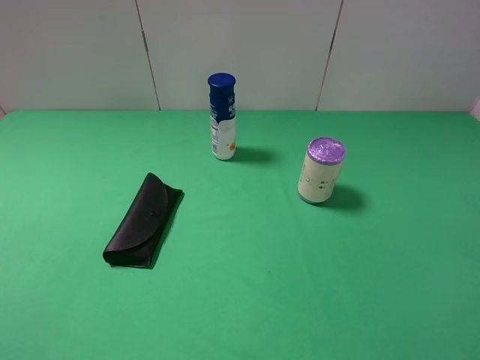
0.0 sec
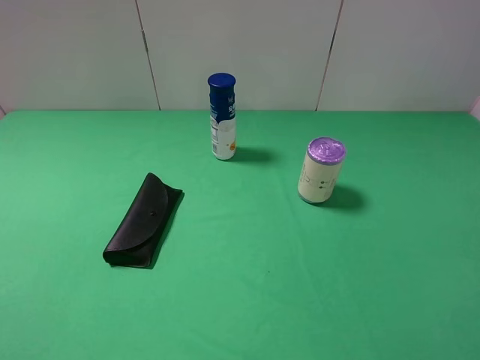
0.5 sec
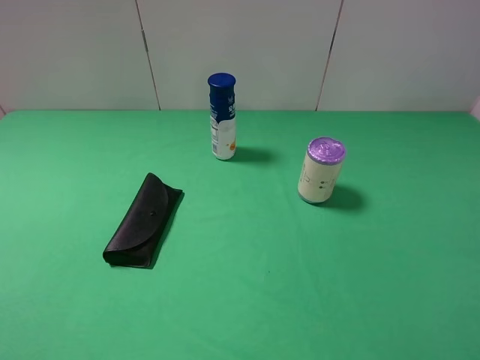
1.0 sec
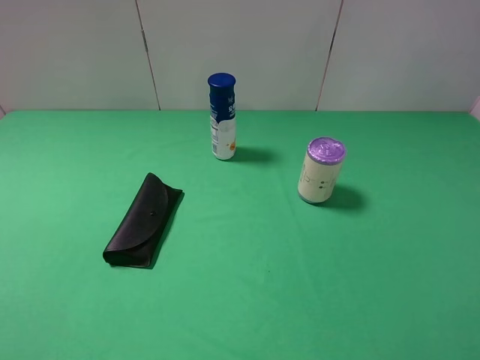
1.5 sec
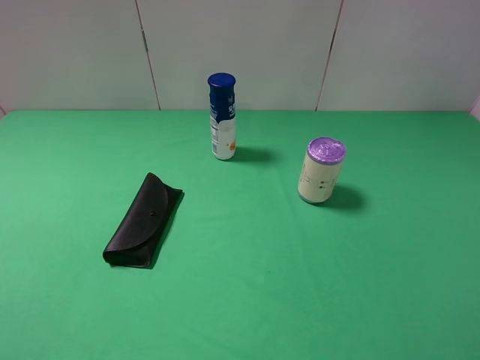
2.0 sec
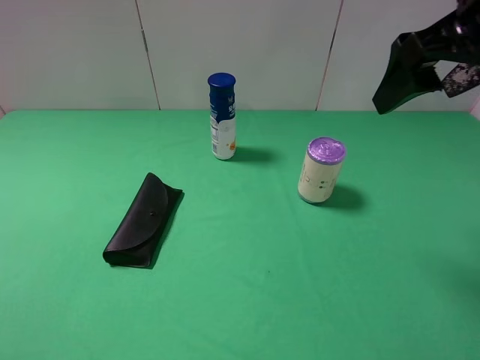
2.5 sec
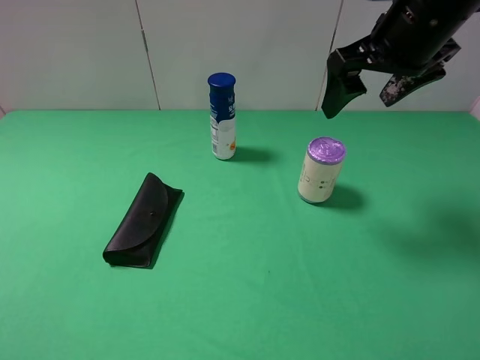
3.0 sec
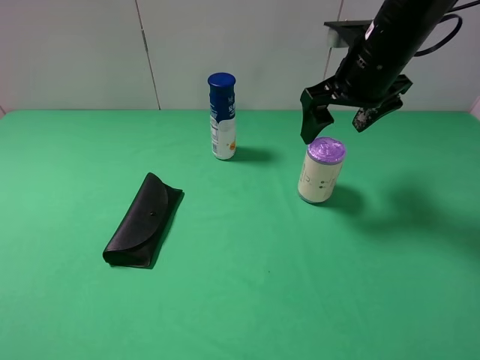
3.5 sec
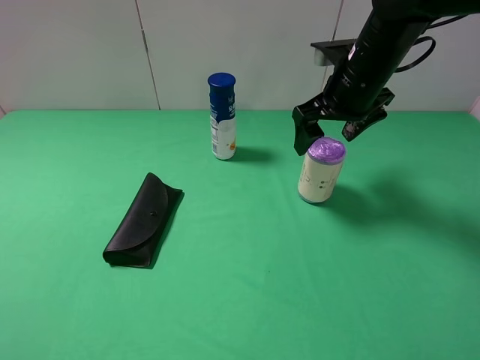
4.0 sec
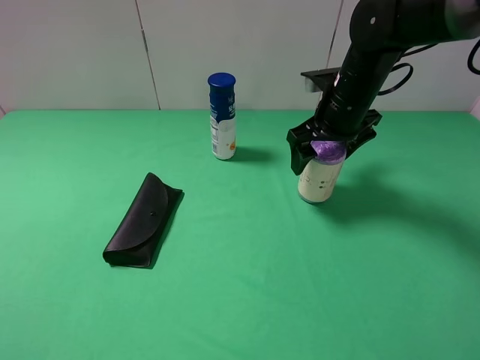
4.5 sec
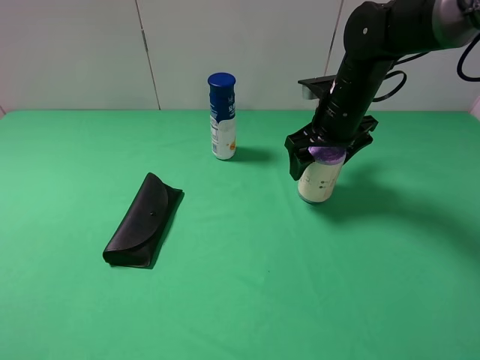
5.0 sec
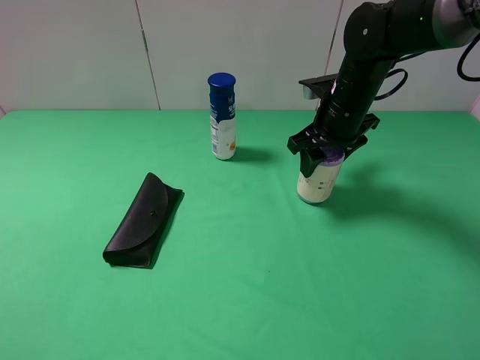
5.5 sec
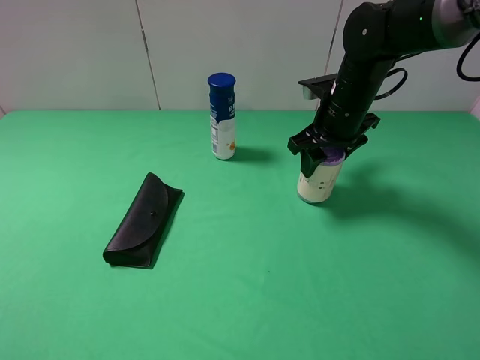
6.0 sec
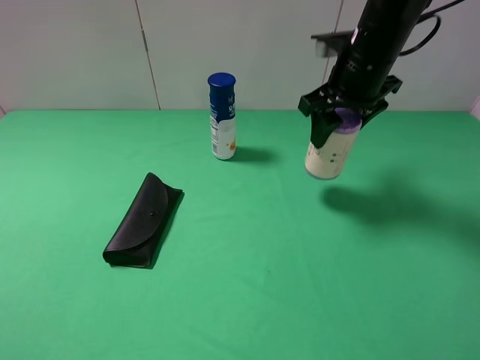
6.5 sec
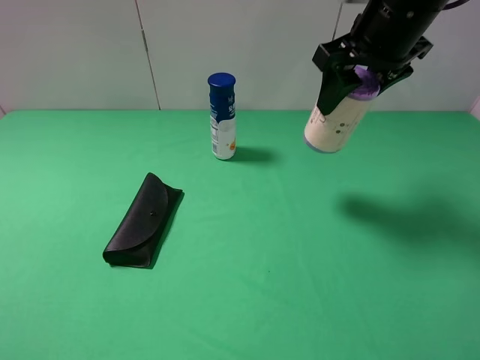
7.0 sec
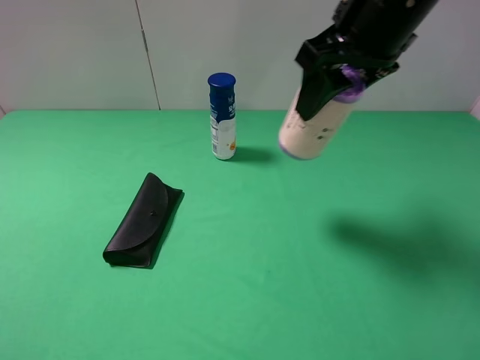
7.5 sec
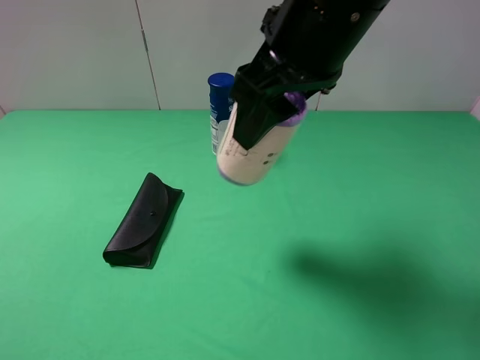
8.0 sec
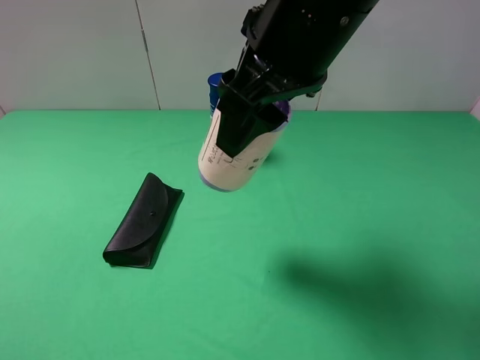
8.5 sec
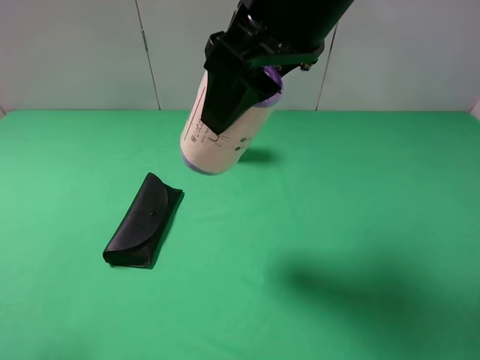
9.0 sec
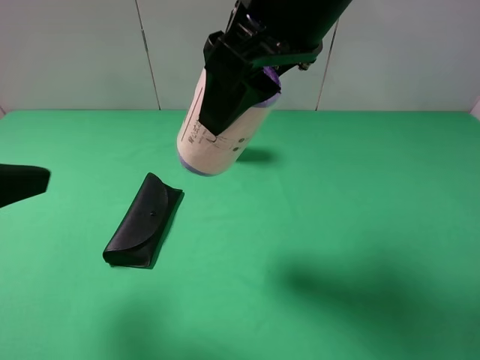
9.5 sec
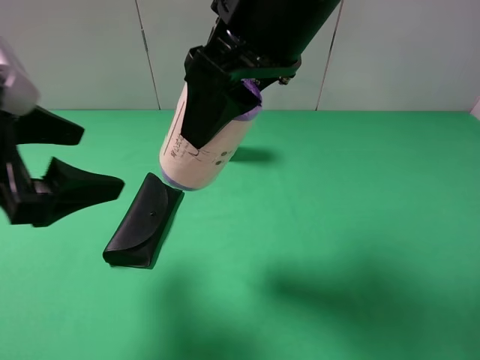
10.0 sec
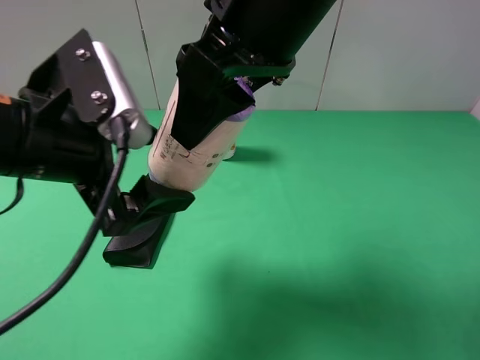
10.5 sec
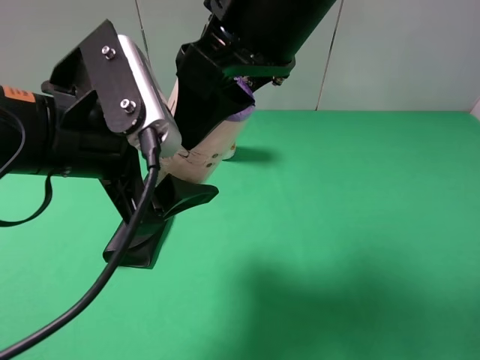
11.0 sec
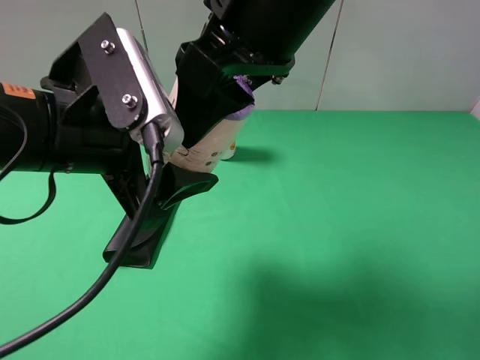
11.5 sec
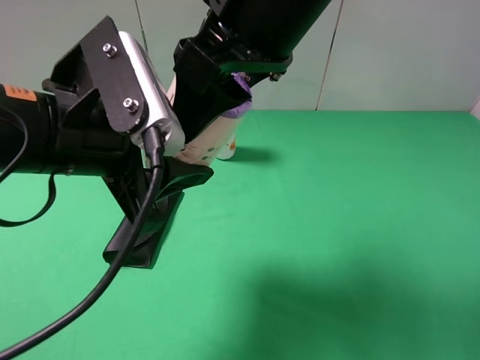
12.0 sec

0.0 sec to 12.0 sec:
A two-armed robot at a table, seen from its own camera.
Task of the whole recording: use the right gripper to pick up the item and transfer it from the right gripper to the left gripper.
Step, 0.0 sec to 5.5 sec: Use the right gripper to grab the purple garbage bag on the right side of the table.
2.0 sec to 4.0 sec: The right gripper travels forward, downward and to the left by roughly 30 cm.
4.0 sec to 6.0 sec: The right gripper changes place by roughly 5 cm, and closes its fingers.
6.0 sec to 8.0 sec: The right gripper shifts approximately 25 cm upward, backward and to the left.
8.0 sec to 10.0 sec: The left gripper heads forward and to the right, covering approximately 20 cm.
10.0 sec to 12.0 sec: The left gripper goes some 10 cm to the right, and closes its fingers.

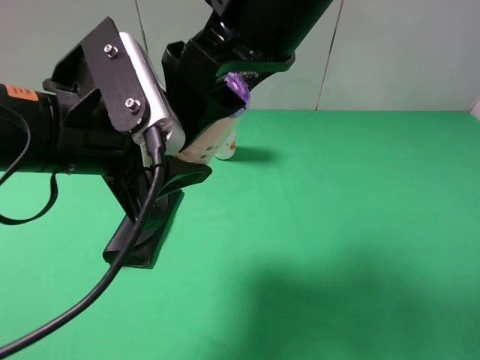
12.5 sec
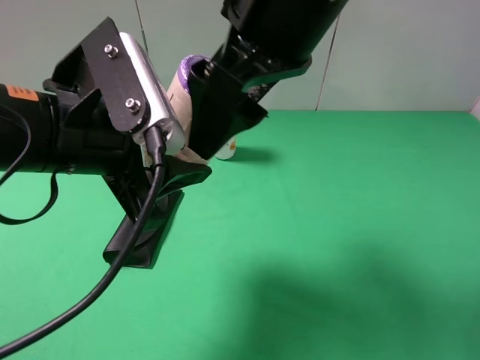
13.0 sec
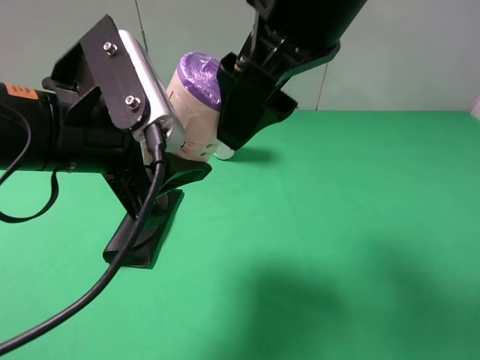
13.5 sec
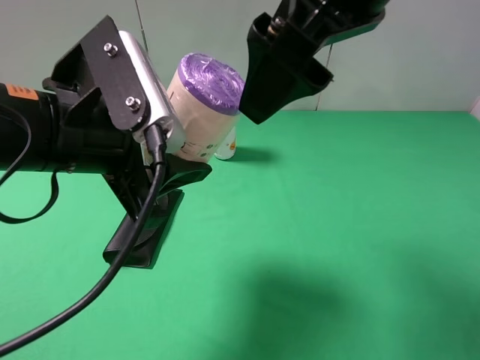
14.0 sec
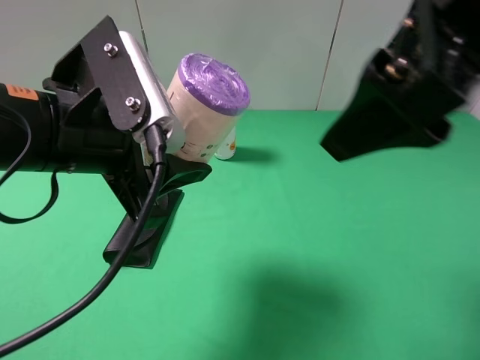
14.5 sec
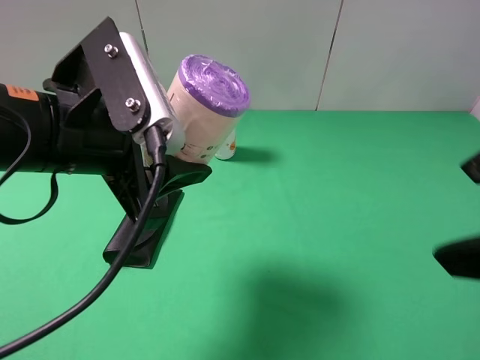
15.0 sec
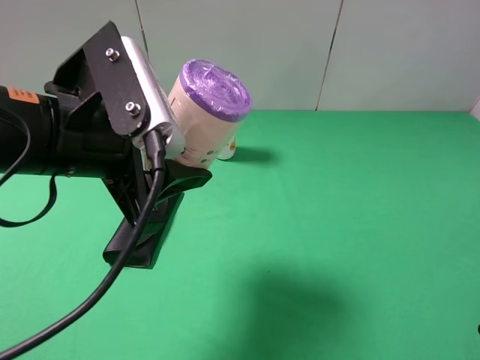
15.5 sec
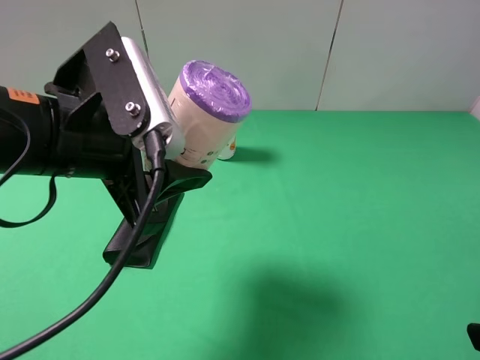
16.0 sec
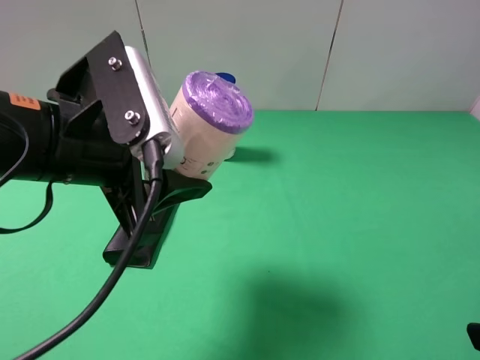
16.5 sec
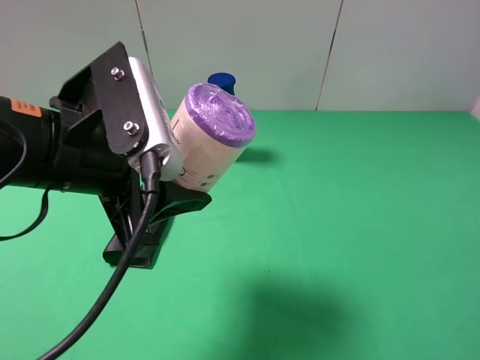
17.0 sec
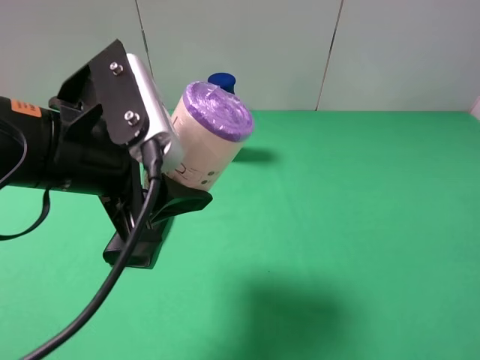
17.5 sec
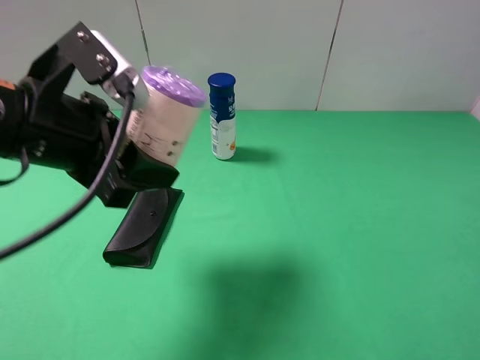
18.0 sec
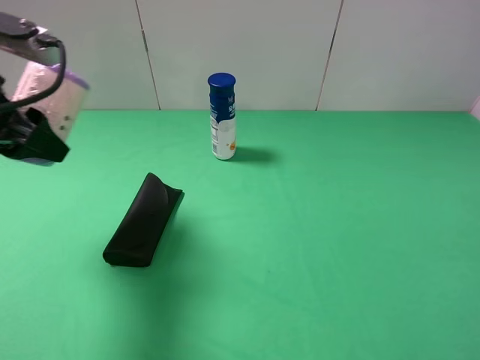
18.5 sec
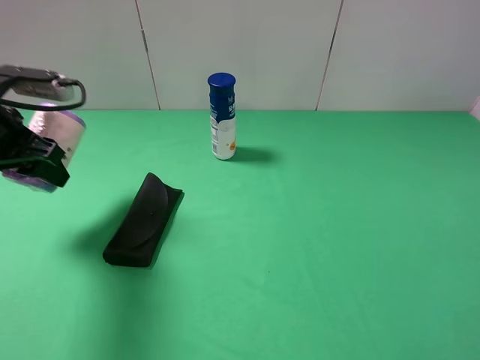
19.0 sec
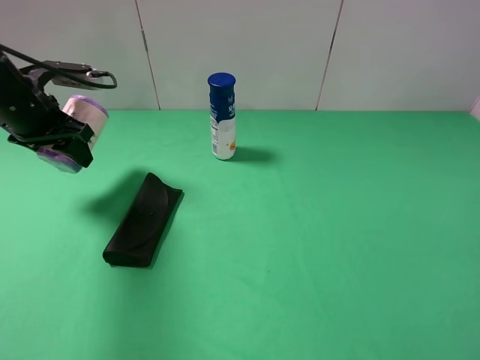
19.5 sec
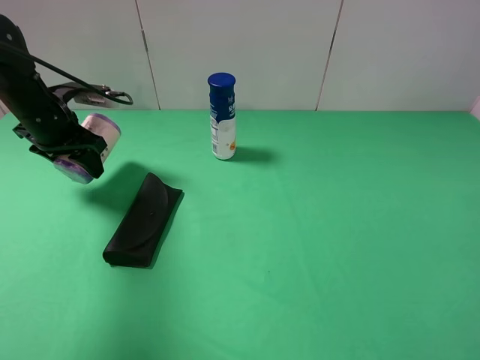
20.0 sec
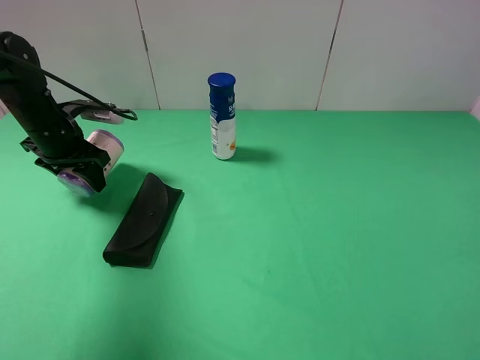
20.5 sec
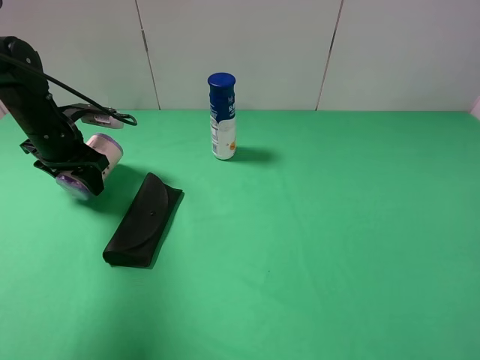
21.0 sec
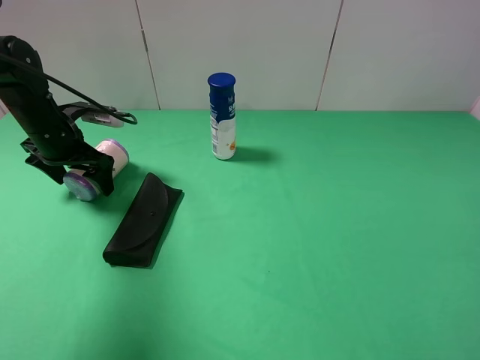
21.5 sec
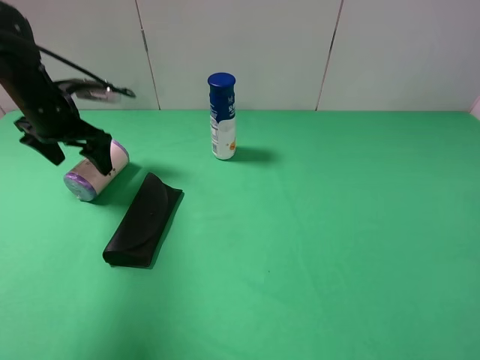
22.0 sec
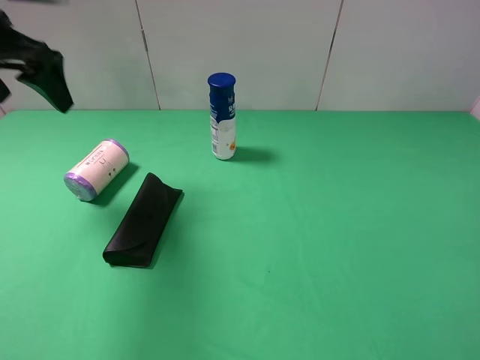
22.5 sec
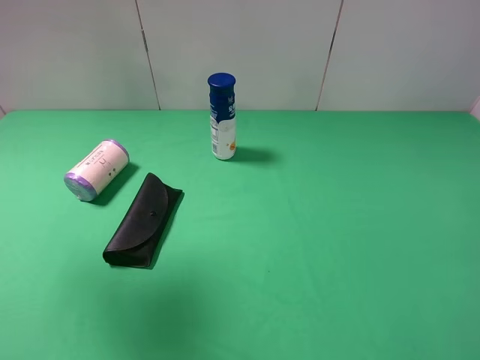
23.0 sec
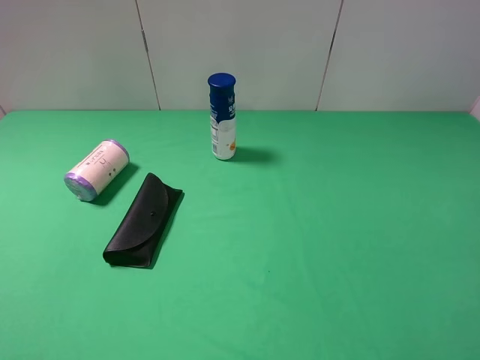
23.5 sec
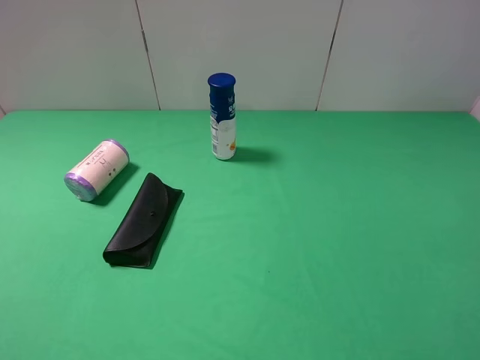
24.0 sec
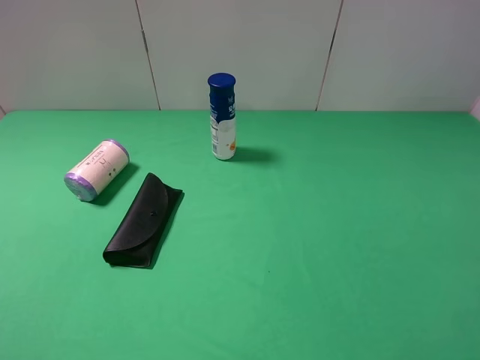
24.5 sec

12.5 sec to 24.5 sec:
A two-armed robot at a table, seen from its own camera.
Task of the whole recording: use the right gripper to pick up the item and transfer it from the right gripper to the left gripper.
Step, 13.5 sec to 21.0 sec: The left gripper places purple garbage bag on the left side of the table.
12.5 sec to 14.5 sec: The right gripper moves to the right and backward, approximately 15 cm.
14.5 sec to 16.5 sec: The right gripper is displaced to the right, downward and backward by roughly 20 cm.
16.5 sec to 18.5 sec: The left gripper shifts some 15 cm to the left and forward.
18.5 sec to 20.5 sec: The left gripper goes about 20 cm downward and forward.
20.5 sec to 22.5 sec: The left gripper moves upward, approximately 20 cm, and opens.
22.5 sec to 24.5 sec: The left gripper travels backward by approximately 30 cm.

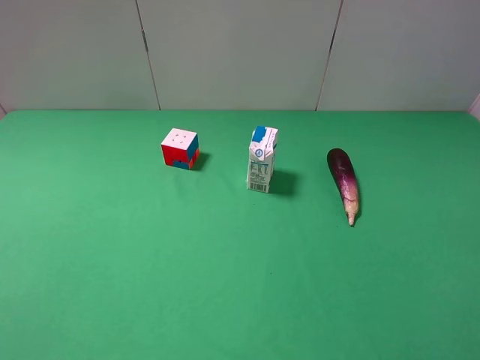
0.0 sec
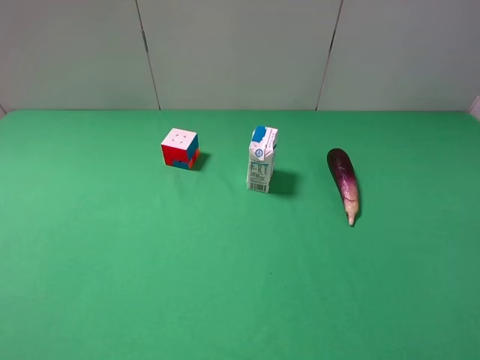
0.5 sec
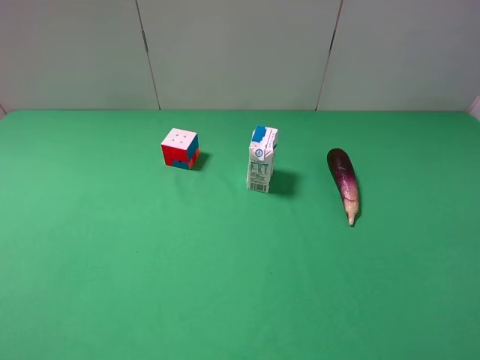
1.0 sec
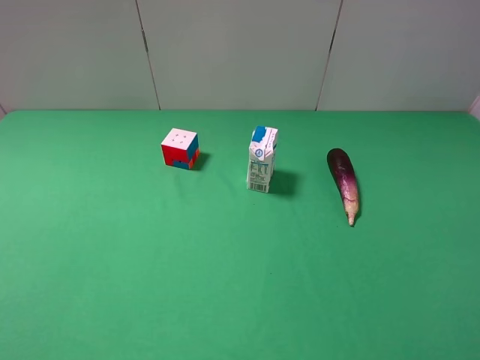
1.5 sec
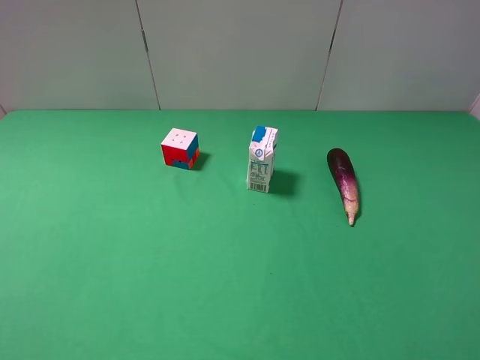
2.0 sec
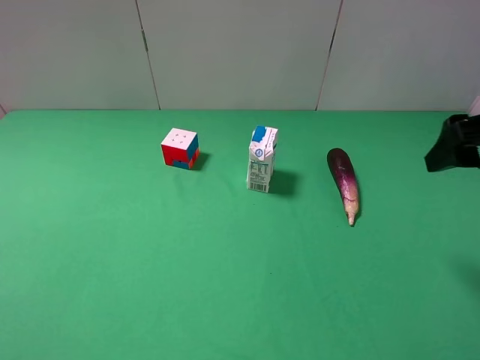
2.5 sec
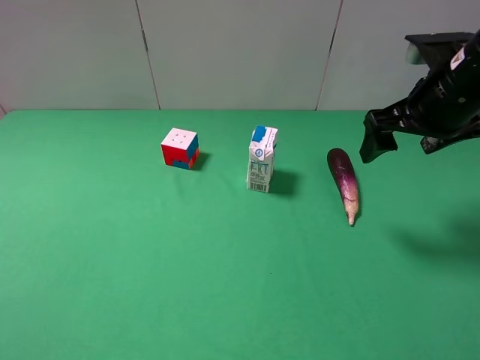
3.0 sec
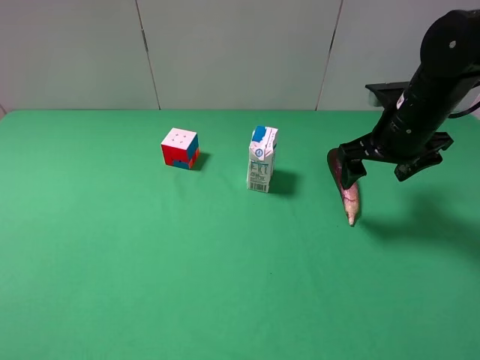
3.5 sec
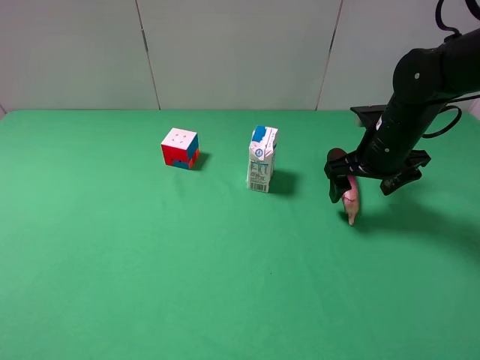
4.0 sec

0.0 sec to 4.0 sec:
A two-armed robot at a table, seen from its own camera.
Task of the whole recording: use the right gripper to pick up the item and transfer it from the right gripper to the left gripper.
2.0 sec to 4.0 sec: The right gripper shifts some 25 cm forward and downward.
